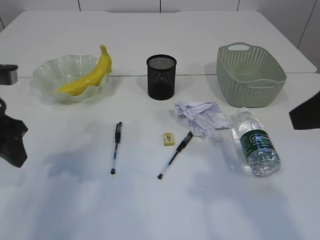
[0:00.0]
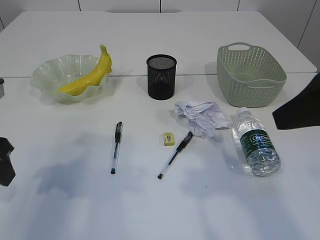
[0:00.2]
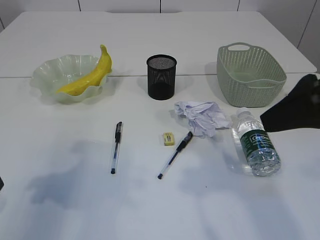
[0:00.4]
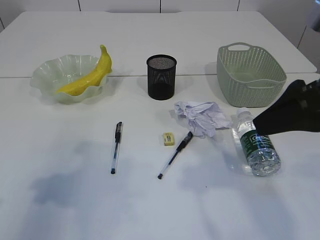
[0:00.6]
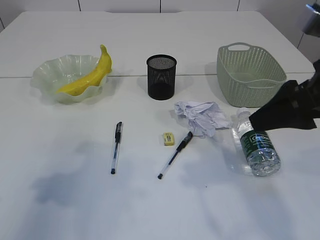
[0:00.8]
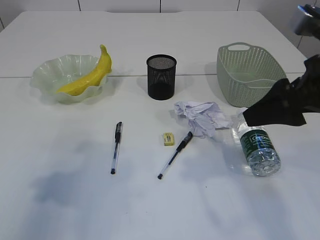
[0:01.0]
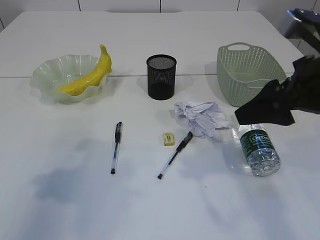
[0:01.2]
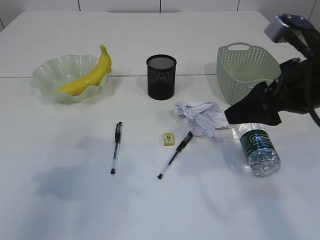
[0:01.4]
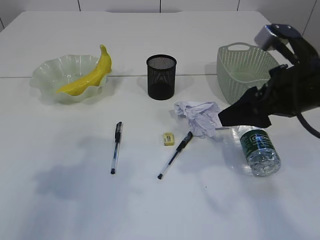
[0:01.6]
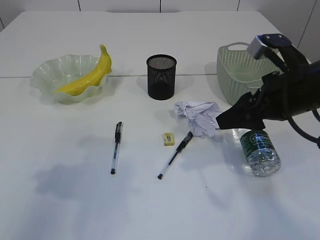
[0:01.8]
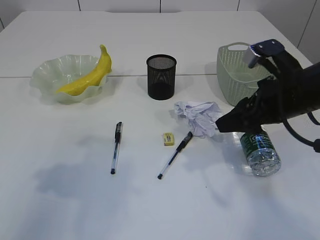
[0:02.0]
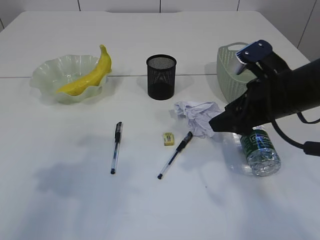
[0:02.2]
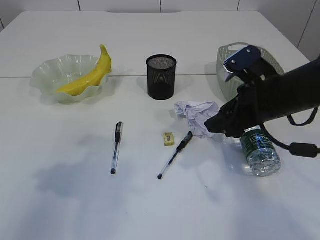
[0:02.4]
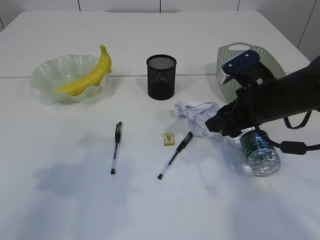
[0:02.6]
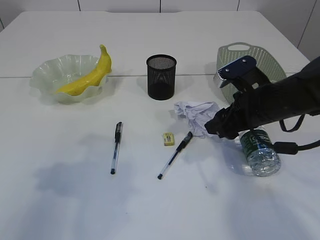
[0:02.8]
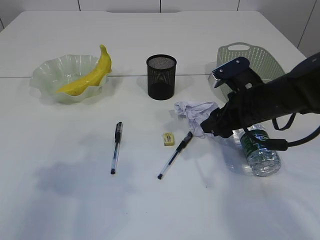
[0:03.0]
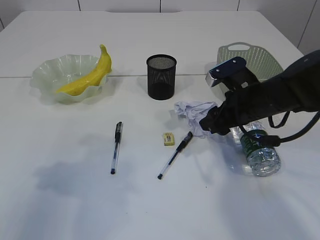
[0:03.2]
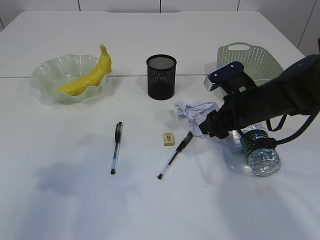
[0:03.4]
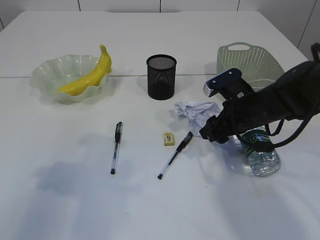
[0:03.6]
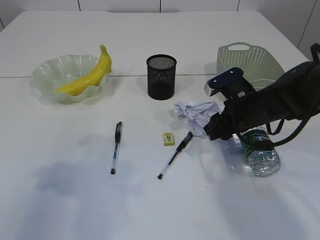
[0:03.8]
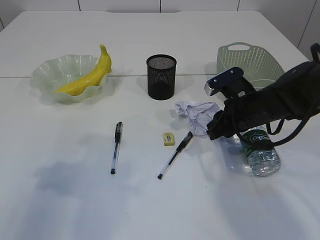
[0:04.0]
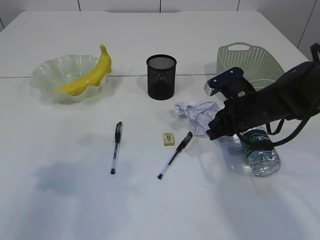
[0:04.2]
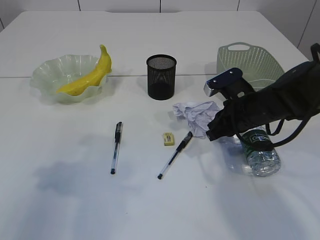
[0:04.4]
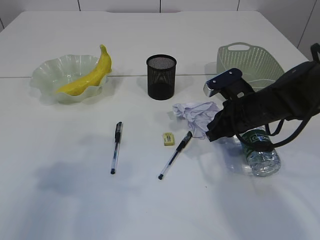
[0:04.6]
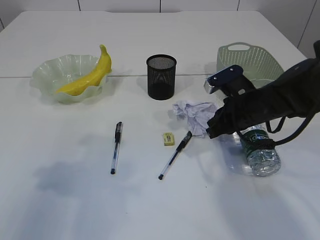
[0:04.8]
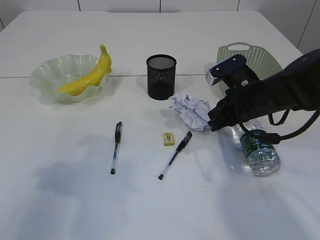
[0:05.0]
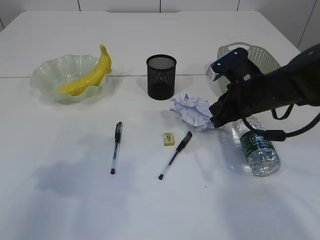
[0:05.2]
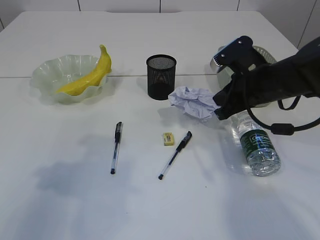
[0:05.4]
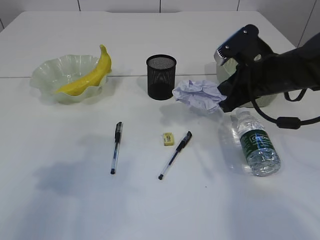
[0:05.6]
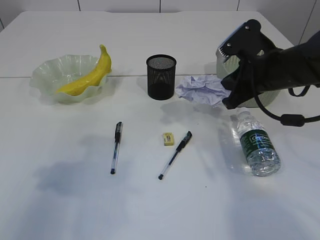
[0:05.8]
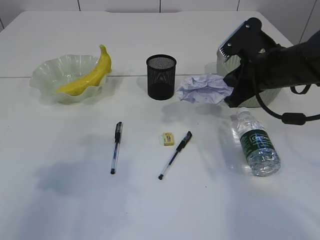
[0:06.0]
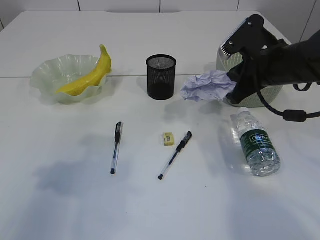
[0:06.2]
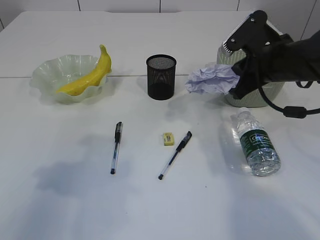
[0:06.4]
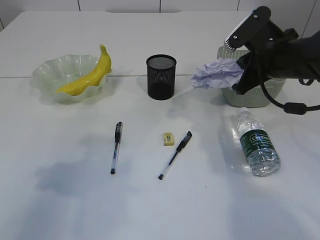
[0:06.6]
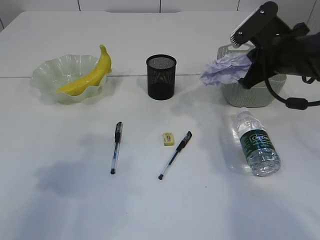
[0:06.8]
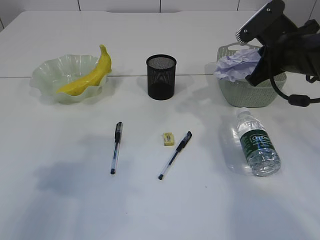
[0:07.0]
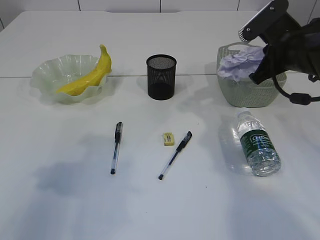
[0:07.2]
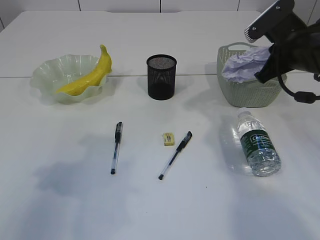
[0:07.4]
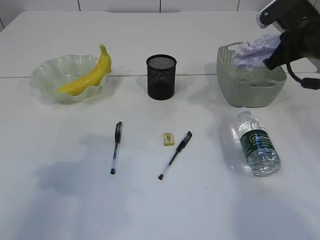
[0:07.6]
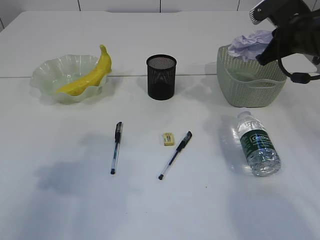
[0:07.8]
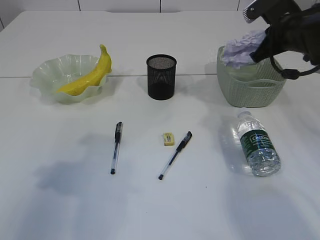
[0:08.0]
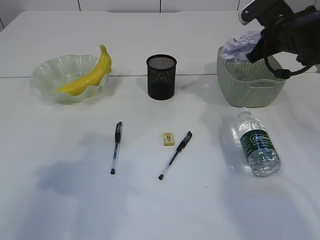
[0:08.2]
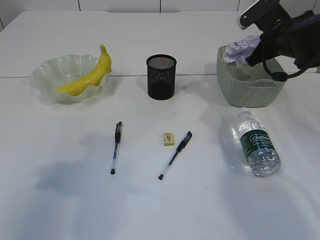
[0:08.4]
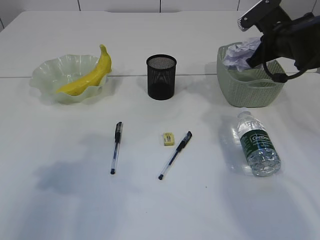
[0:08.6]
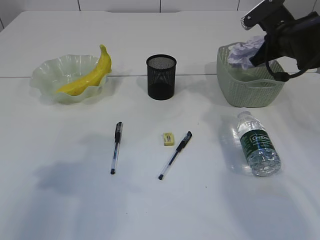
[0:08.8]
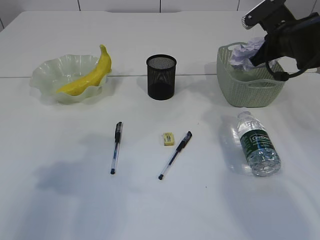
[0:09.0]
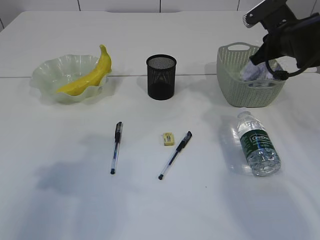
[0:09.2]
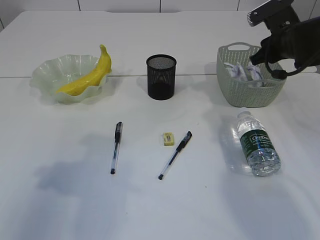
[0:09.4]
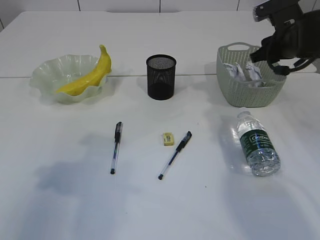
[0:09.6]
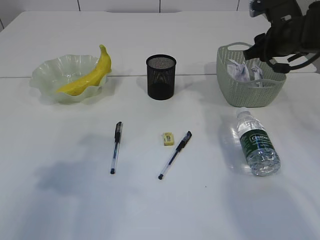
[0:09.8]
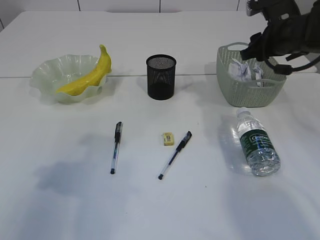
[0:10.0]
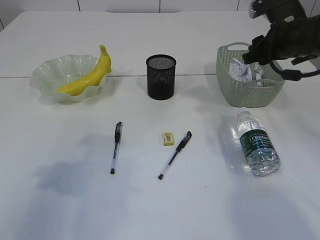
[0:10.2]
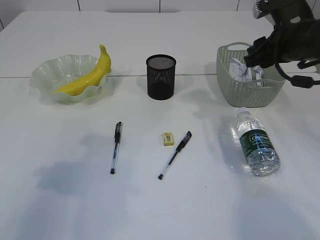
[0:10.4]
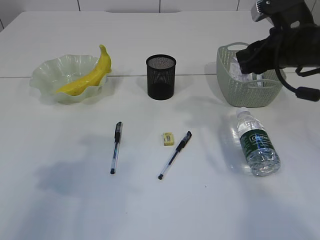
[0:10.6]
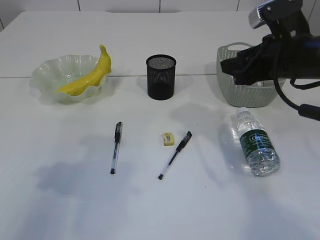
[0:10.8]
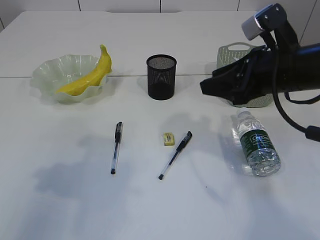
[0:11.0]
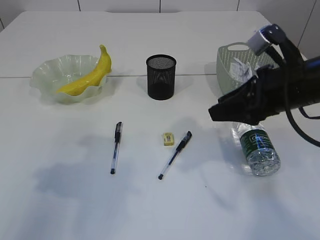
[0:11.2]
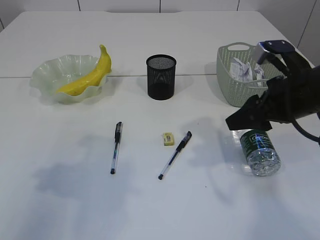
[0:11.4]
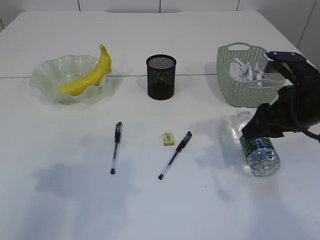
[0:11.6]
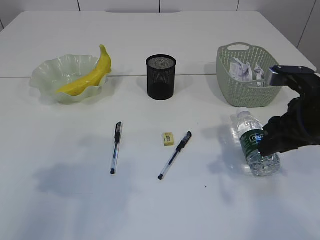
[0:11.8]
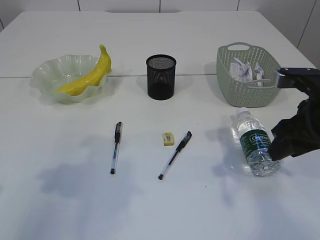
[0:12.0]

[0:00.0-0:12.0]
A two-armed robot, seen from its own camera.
Step, 0:00.0 to 0:05.8: Pick up the waste paper.
Step, 0:06.0 to 0:10.6: Place the waste paper in the basket.
0:00.0 to 0:01.6: The left gripper shifts about 5 cm backward. Meanwhile the right gripper travels forward and downward by roughly 15 cm.
0:01.6 to 0:03.0: The right gripper shifts roughly 10 cm downward and forward.
0:03.0 to 0:04.4: The right gripper closes up.
0:04.4 to 0:06.0: The right gripper moves upward, some 10 cm.
0:06.0 to 0:07.6: The right gripper shifts approximately 5 cm to the right.
0:07.6 to 0:09.0: The right gripper heads forward, covering approximately 5 cm.
0:09.0 to 0:10.4: The right gripper is displaced backward by roughly 5 cm, and opens its fingers.
0:10.4 to 0:12.0: The right gripper is displaced backward by some 10 cm.

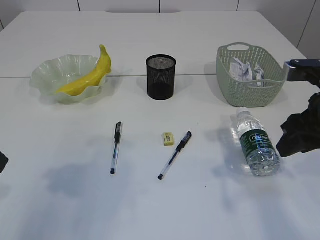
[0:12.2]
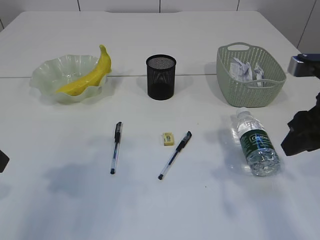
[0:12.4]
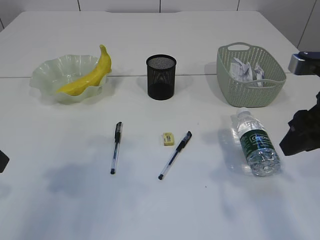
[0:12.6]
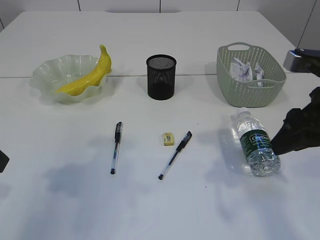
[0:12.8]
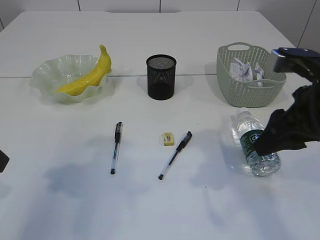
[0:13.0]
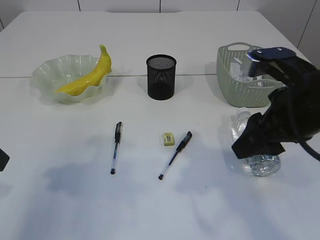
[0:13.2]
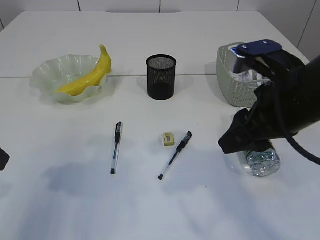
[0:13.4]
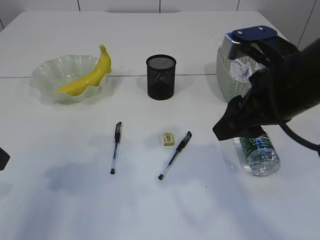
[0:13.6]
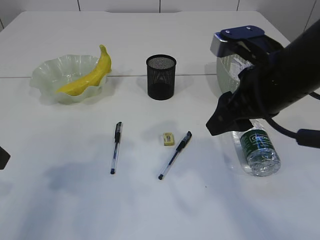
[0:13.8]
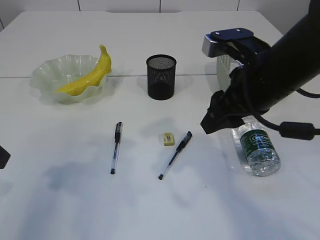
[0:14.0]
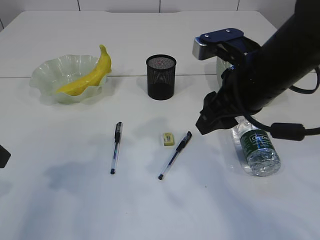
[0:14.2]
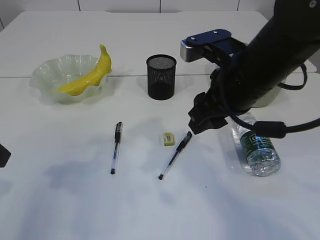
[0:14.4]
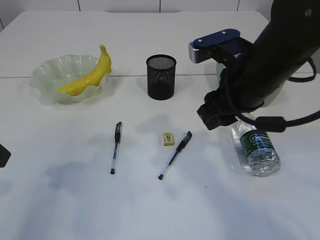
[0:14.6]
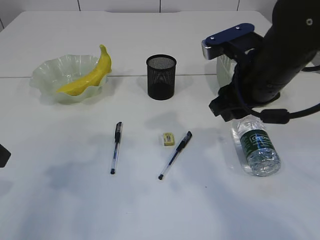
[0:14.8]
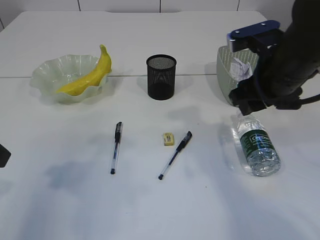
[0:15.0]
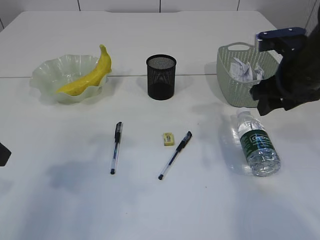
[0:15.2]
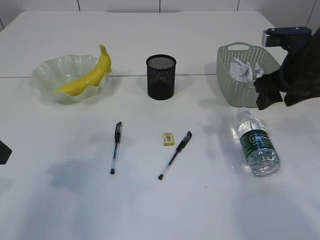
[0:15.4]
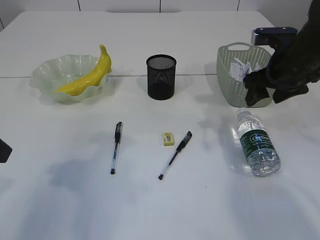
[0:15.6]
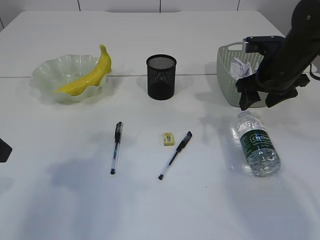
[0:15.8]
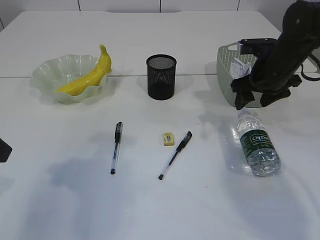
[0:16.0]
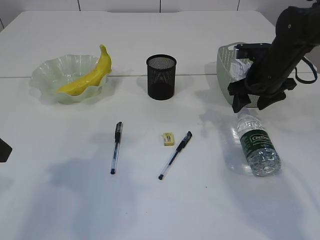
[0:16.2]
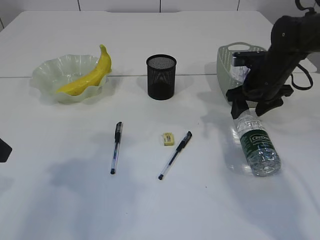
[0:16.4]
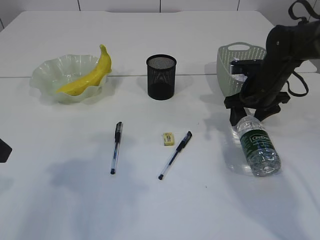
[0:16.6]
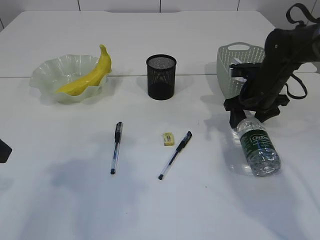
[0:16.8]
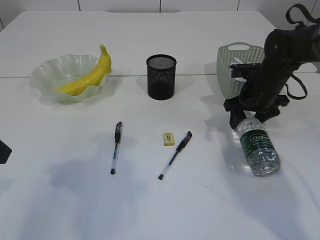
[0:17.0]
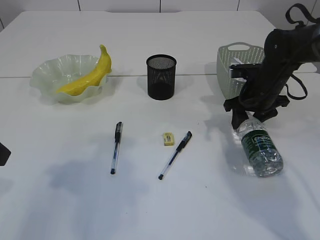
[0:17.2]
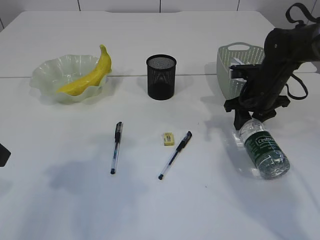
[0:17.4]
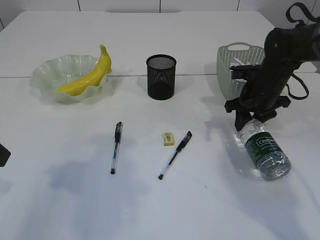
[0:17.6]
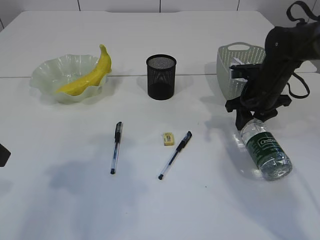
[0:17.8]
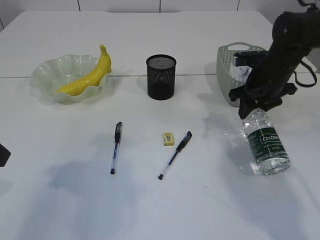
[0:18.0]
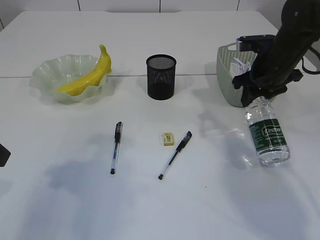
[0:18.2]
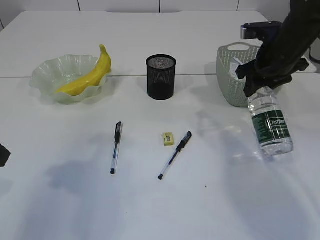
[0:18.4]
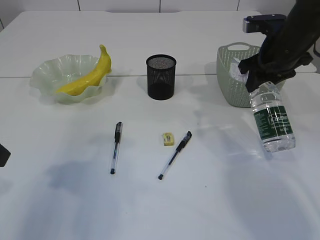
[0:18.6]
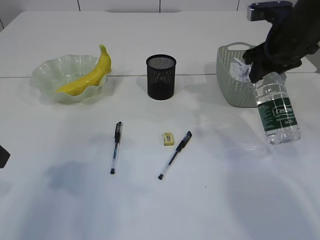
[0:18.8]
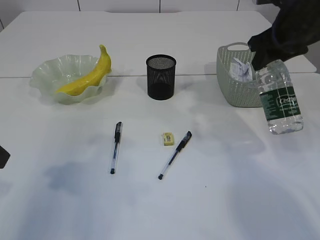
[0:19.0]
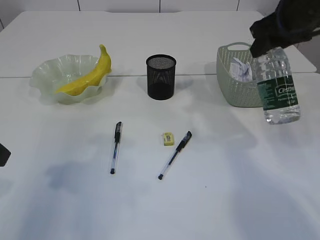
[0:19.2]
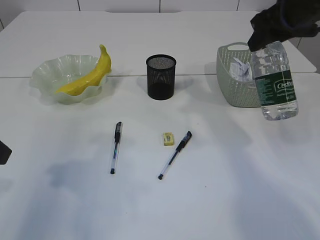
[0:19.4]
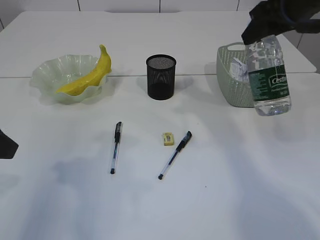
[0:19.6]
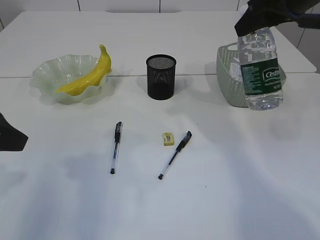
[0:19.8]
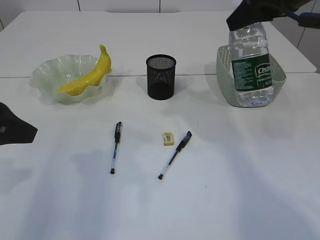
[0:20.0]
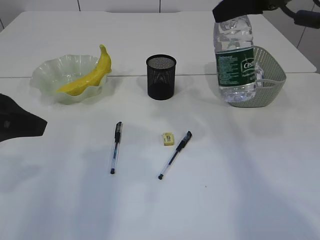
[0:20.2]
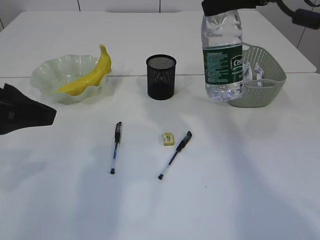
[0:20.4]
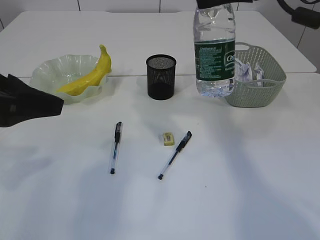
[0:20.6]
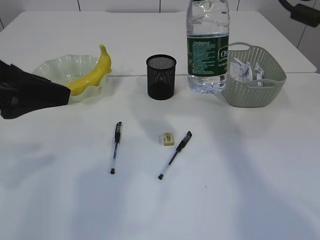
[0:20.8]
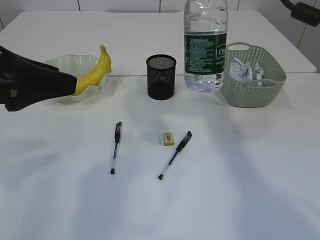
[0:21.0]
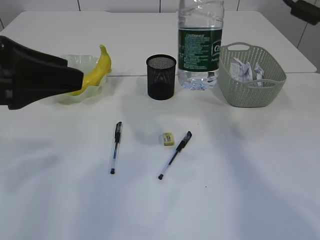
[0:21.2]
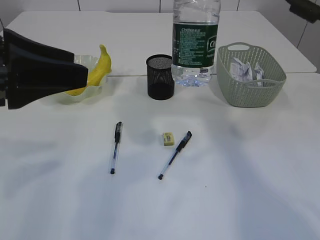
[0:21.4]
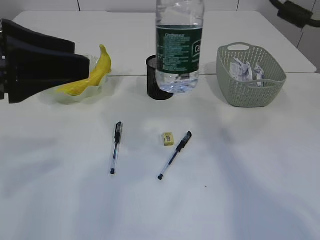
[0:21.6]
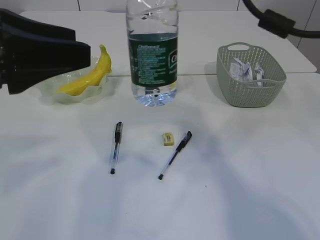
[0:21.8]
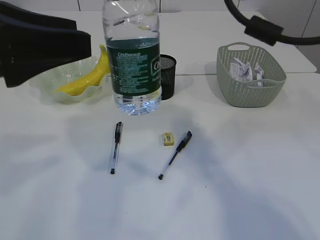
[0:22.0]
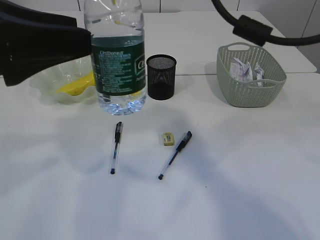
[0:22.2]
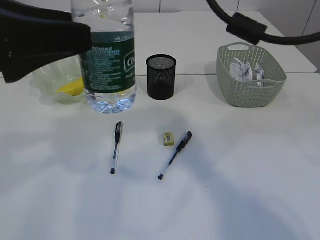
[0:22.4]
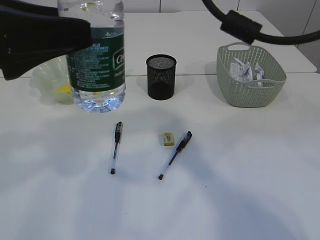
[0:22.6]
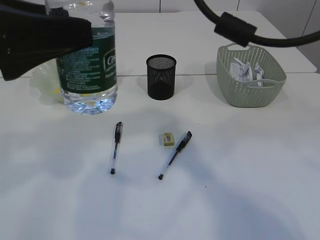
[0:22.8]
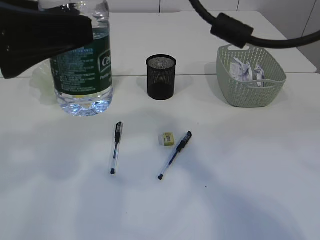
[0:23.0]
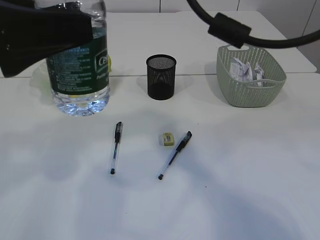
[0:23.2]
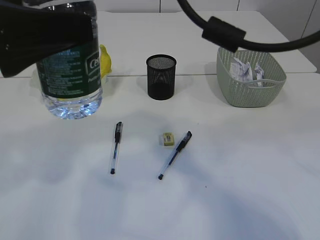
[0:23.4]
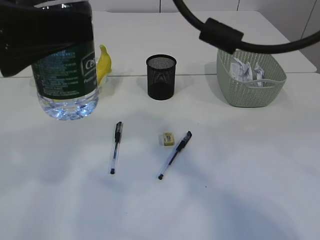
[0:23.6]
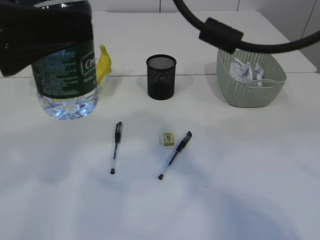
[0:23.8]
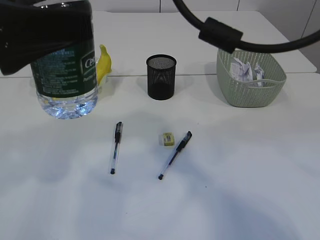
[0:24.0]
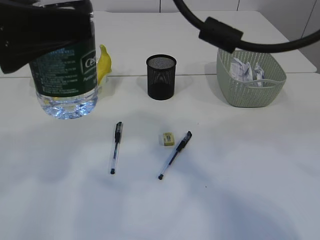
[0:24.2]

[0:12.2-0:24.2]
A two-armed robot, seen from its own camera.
Step, 0:12.2 to 0:18.6: Pick up the bottle with the right arm.
0:12.2 to 0:13.8: The right gripper shifts about 10 cm to the left.
0:13.8 to 0:15.2: The right gripper travels to the right and forward by roughly 10 cm.
0:15.2 to 0:16.6: The right gripper is displaced forward and downward by some 15 cm.
0:16.6 to 0:18.2: The right gripper heads upward, covering roughly 5 cm, and closes its fingers.
0:18.2 to 0:19.8: The right gripper travels upward by about 15 cm.
0:19.8 to 0:21.2: The right gripper moves approximately 5 cm. Meanwhile the left gripper shifts by about 5 cm.
0:21.2 to 0:22.6: The right gripper moves to the left and backward, some 10 cm.
0:22.6 to 0:24.2: The grippers move only a little.
